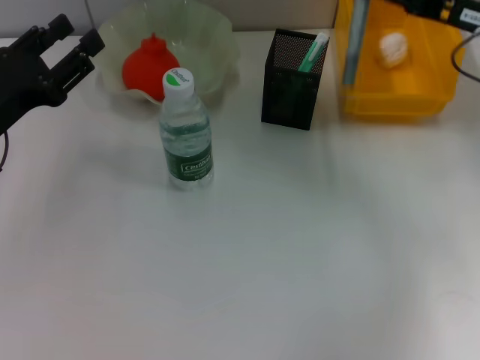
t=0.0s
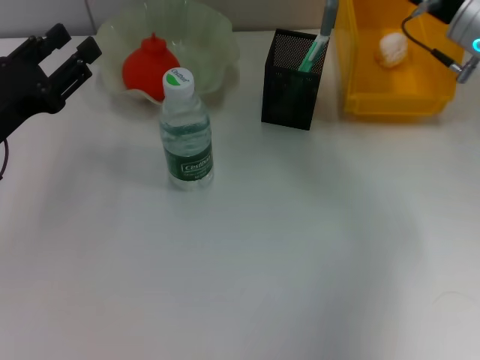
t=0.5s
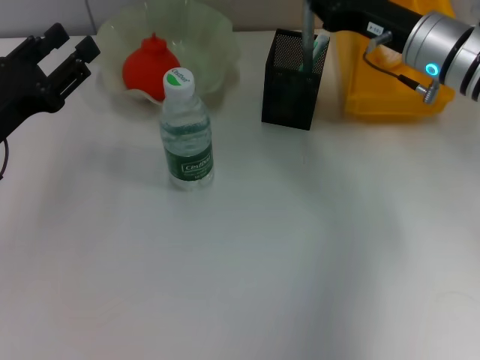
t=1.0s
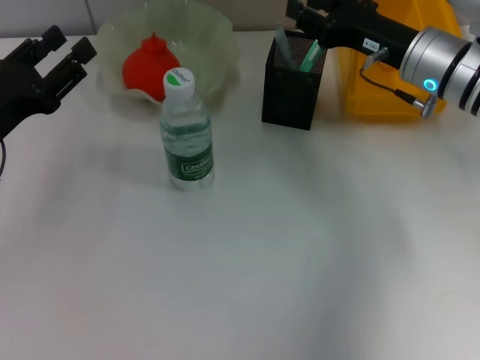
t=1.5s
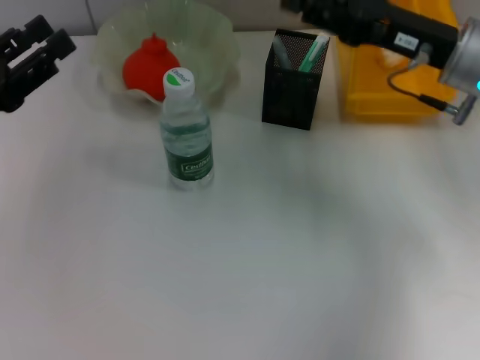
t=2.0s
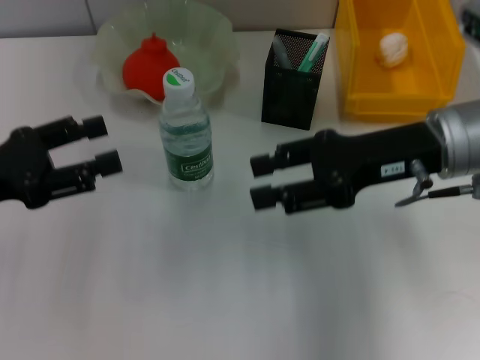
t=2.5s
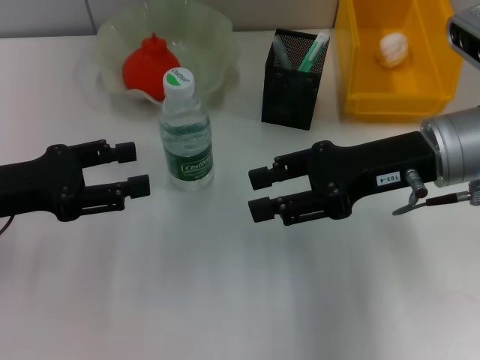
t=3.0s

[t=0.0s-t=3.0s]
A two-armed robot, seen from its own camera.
Step, t=0.0s to t=1.0s: Place the gray glue into the pen holder with the right hand.
t=0.0s to t=1.5s: The right gripper is displaced to the left and downward by about 10 cm.
t=1.5s to t=3.0s: The right gripper travels backward by about 10 cm, and opens its fingers.

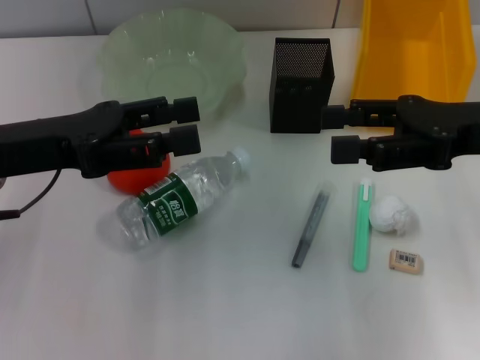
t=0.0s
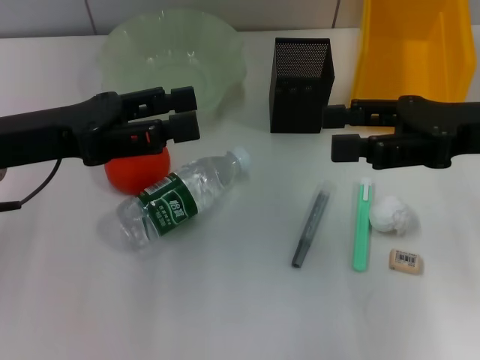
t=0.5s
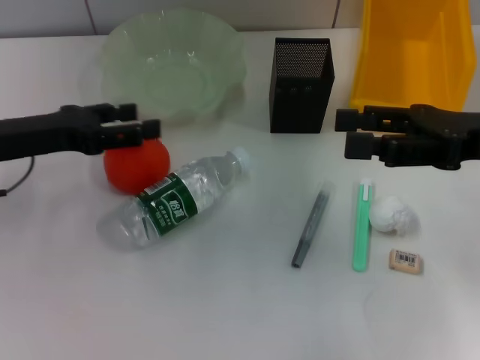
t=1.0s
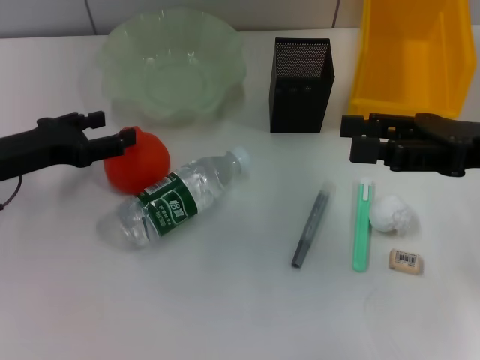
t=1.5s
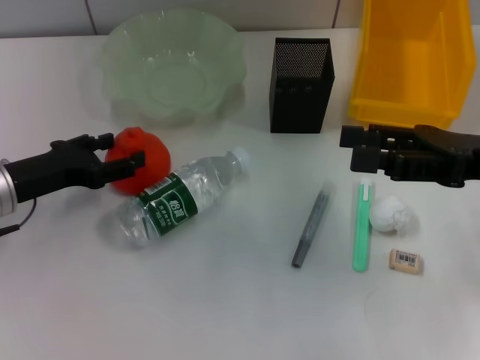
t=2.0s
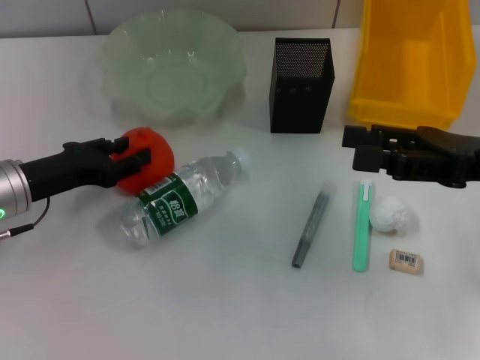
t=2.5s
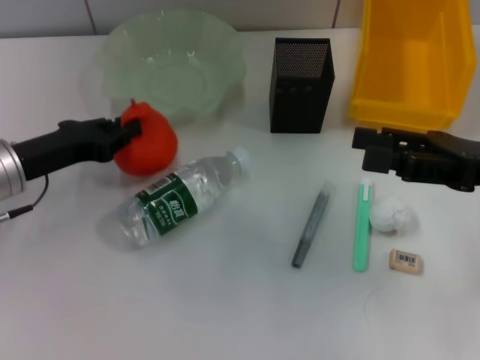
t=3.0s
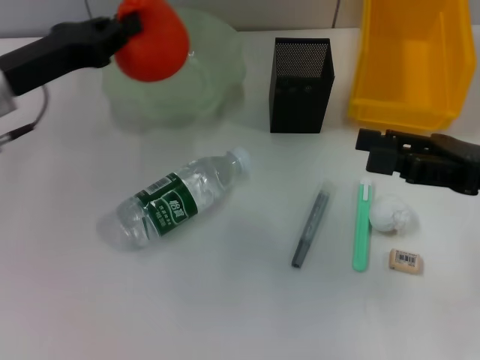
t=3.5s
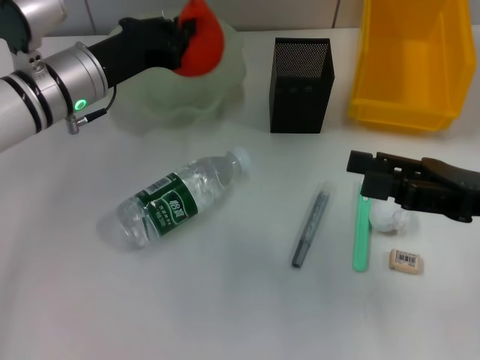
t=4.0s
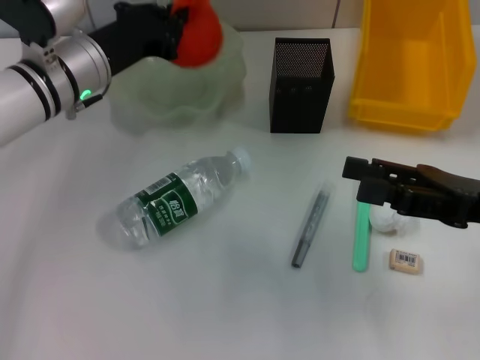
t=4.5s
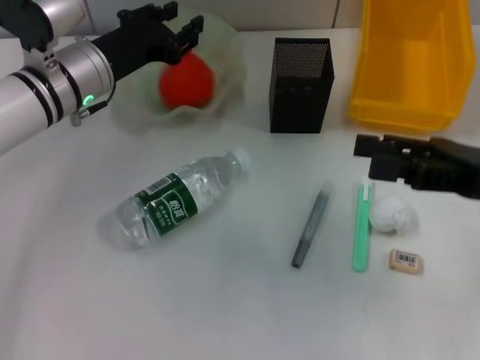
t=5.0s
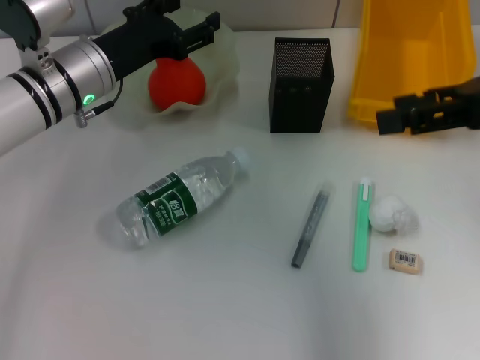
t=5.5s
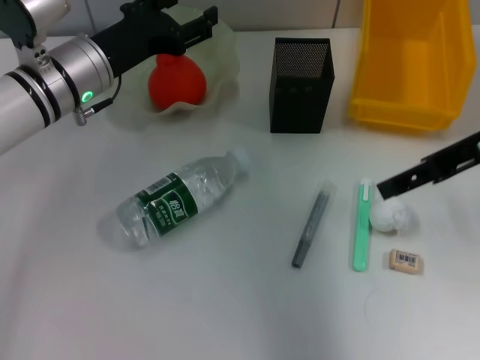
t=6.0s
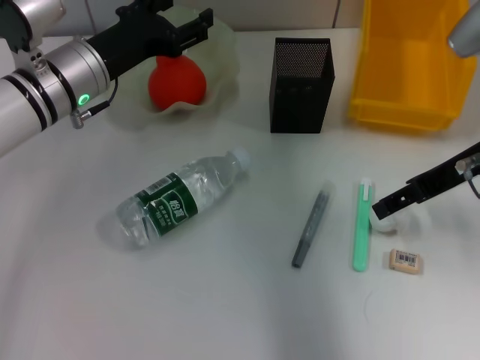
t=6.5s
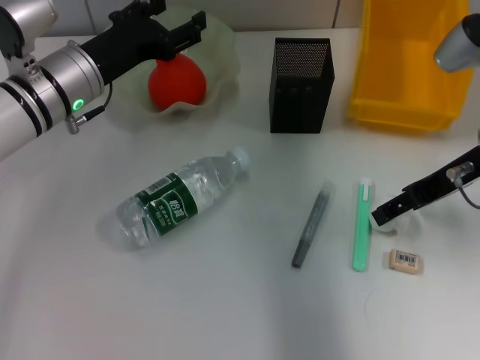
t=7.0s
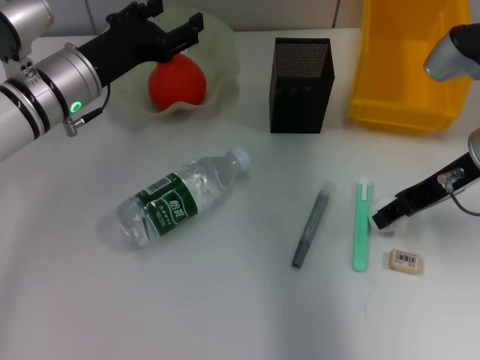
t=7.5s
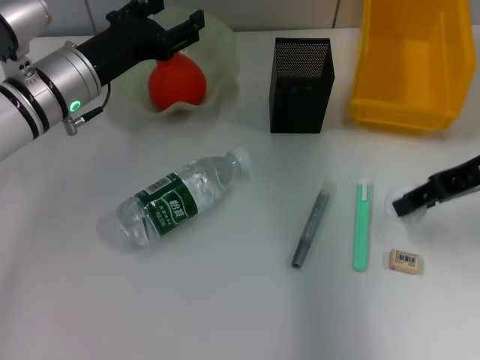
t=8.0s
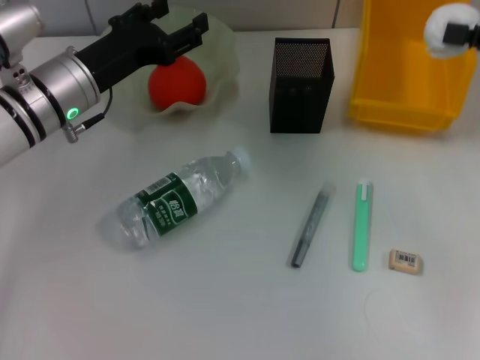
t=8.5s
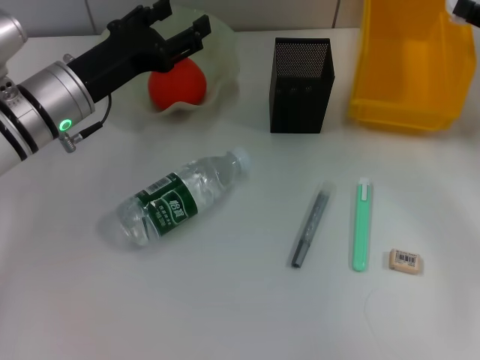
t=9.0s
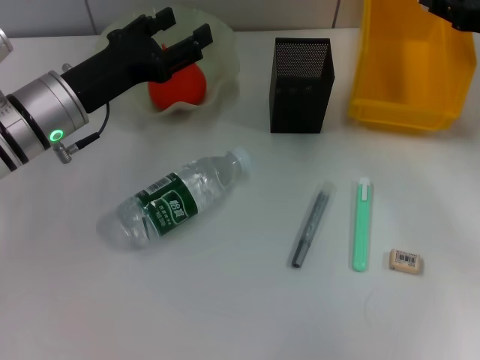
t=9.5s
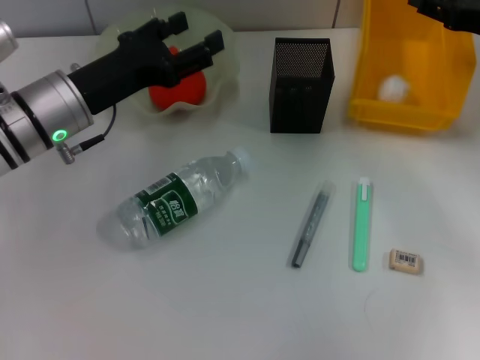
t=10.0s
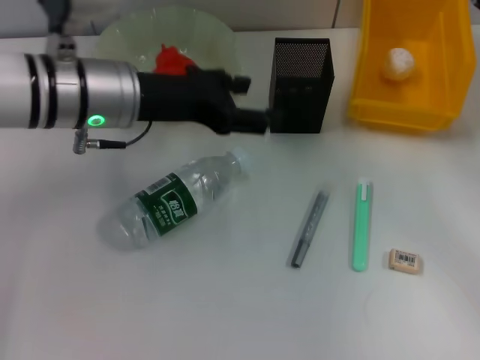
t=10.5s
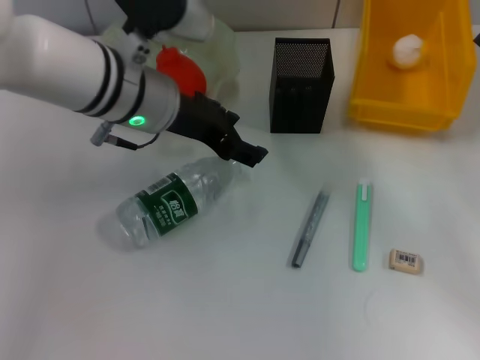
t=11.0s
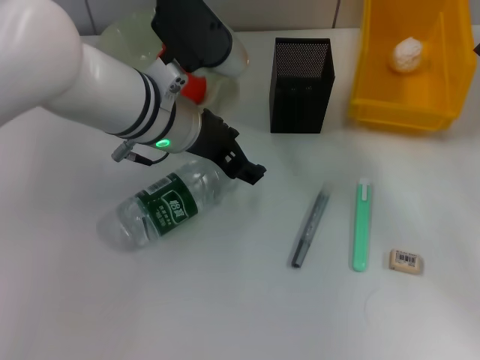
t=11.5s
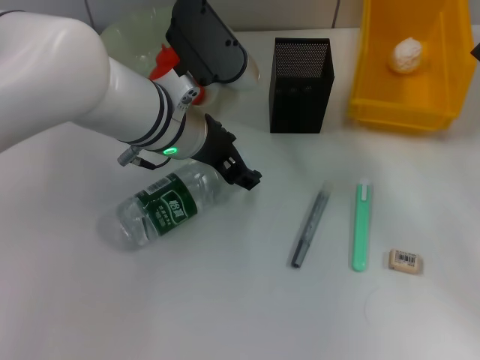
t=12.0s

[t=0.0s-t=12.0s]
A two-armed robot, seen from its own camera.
Step, t=0.0s to t=2.5s: Grab the orange with the left hand.
Step, t=3.0s to t=5.0s: Place the orange into the fruit bowl with the left hand.
Step, t=5.5s to t=7.0s: Grab the paper ball with the right hand.
Step, t=8.0s to t=11.0s: Place the paper ball into the trash can with the right hand.
t=0.0s to t=2.0s: The left gripper travels downward by approximately 10 cm.
t=2.0s to t=4.0s: The left gripper goes some 15 cm to the right and forward, and closes its fingers.
t=4.0s to t=6.0s: The left gripper opens its fingers. The right gripper is displaced upward and forward by roughly 10 cm.
t=6.0s to t=8.0s: The right gripper moves roughly 5 cm, and closes.
t=8.0s to t=10.0s: The right gripper is displaced forward by approximately 5 cm.
t=10.0s to t=12.0s: The right gripper shifts roughly 15 cm backward; the left gripper goes approximately 10 cm to the right.

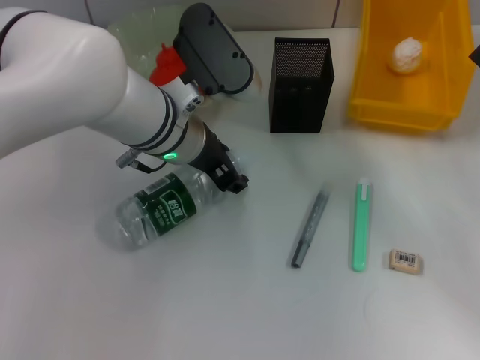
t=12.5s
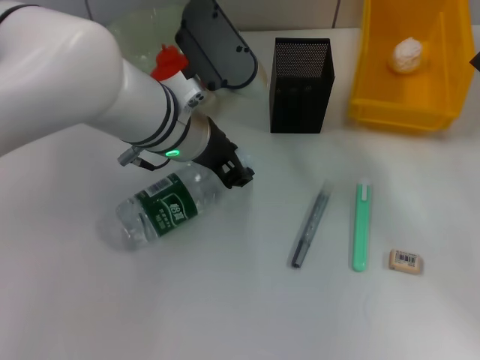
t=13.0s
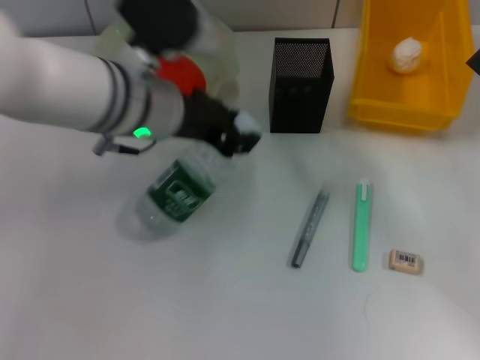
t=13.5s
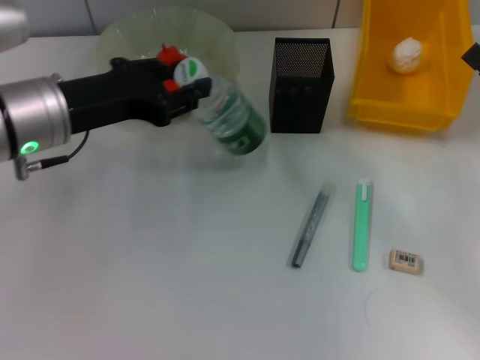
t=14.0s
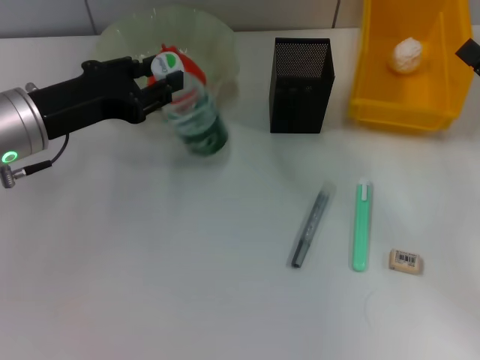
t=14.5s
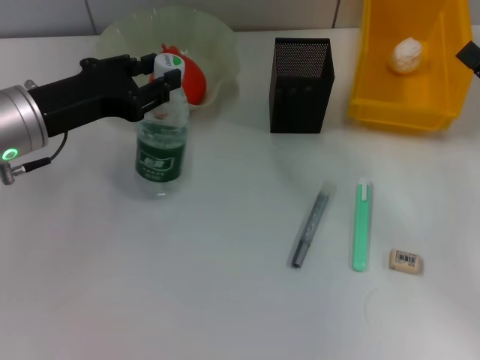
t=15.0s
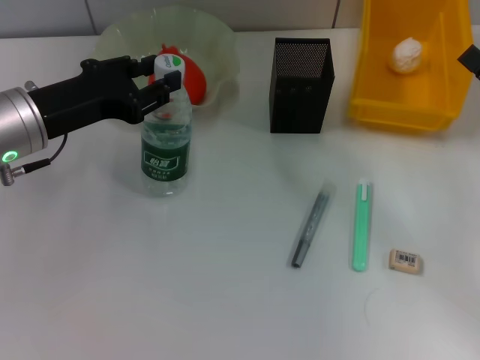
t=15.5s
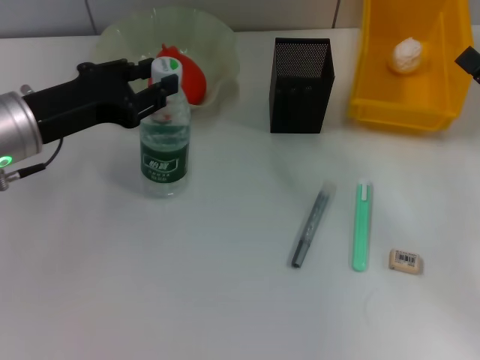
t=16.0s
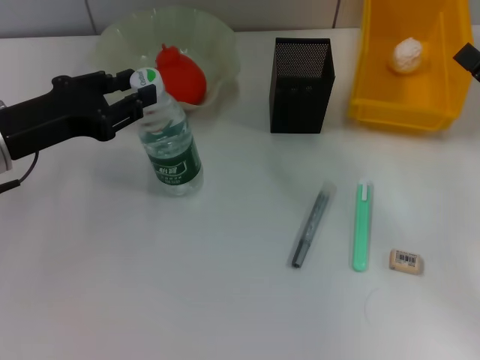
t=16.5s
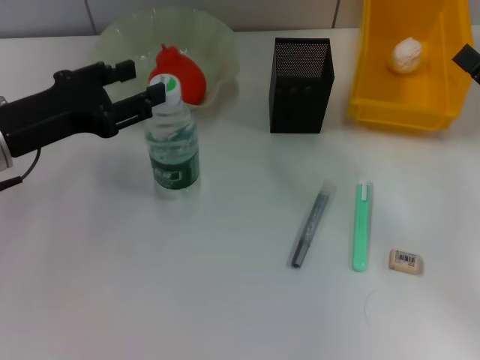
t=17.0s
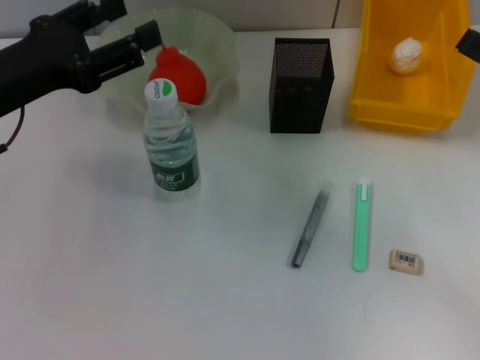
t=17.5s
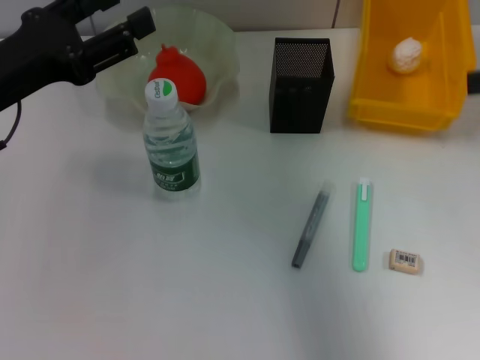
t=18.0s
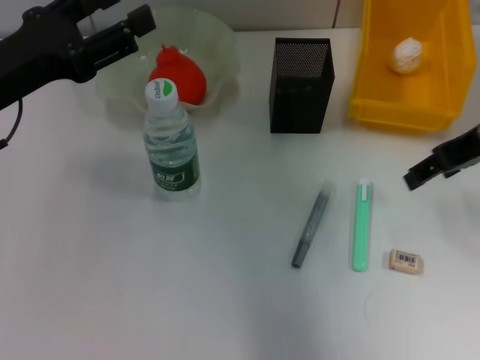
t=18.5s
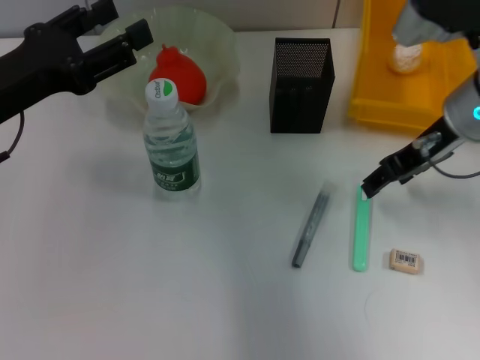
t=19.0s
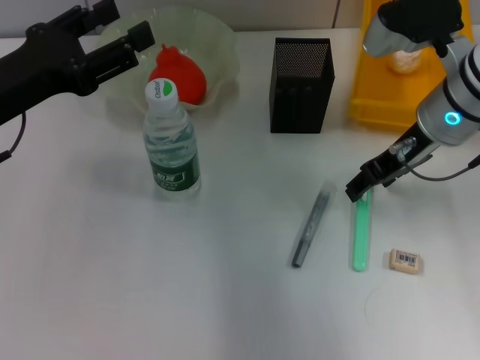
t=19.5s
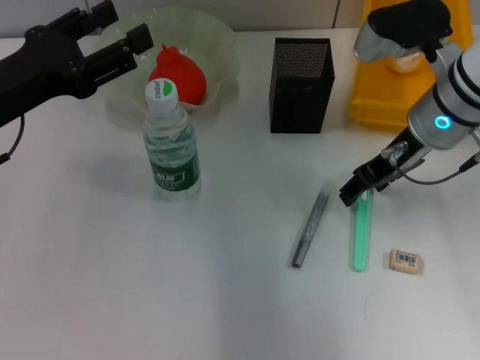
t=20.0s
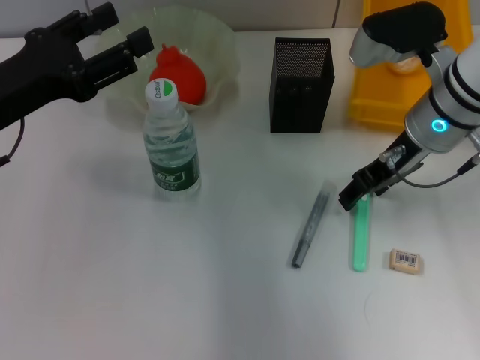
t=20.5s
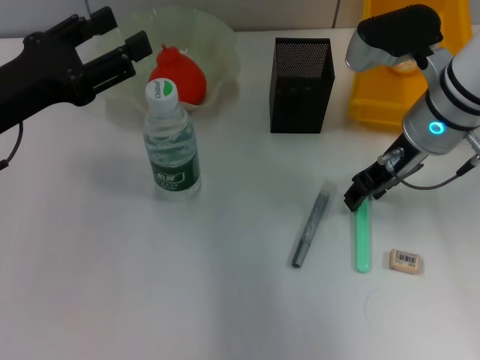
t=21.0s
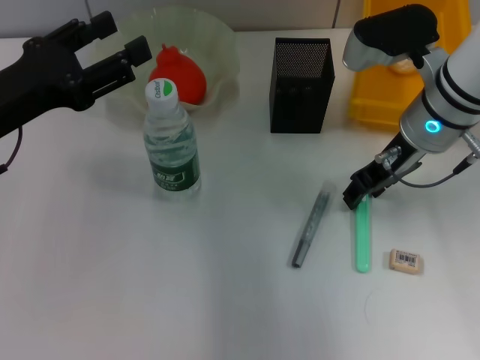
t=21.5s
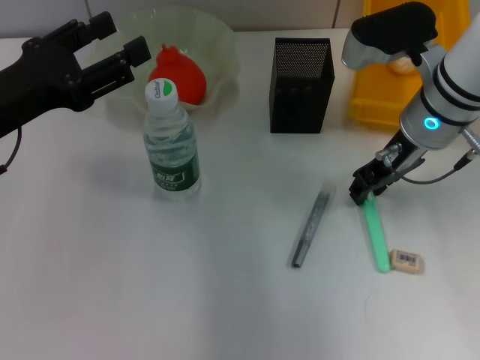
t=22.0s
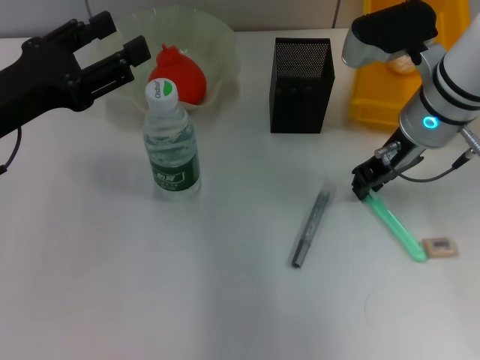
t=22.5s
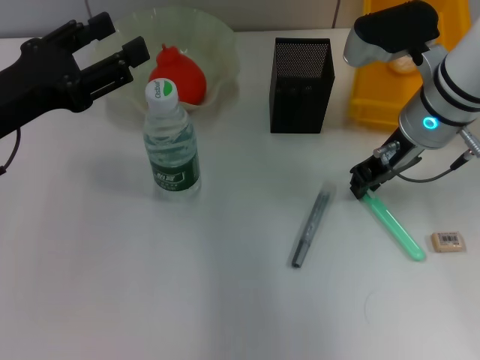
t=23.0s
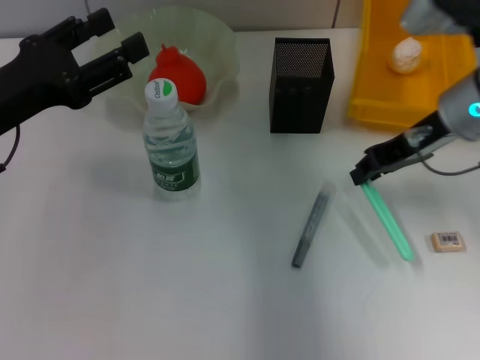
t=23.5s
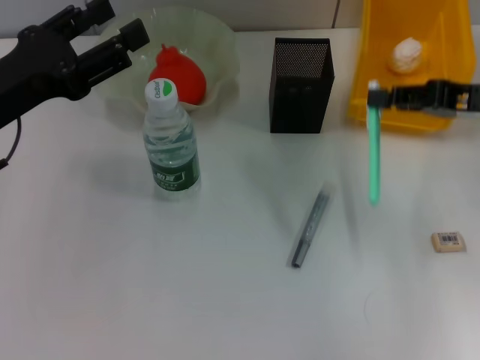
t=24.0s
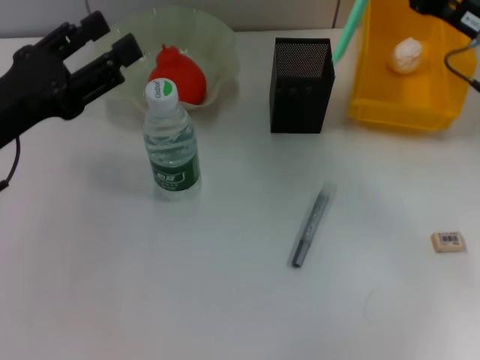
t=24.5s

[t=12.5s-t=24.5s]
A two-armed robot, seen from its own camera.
Step, t=13.0s to t=17.0s: Place the water bottle on the table with the left hand.
Step, t=17.5s to t=22.5s: Grab the blue utility knife with the right hand.
t=12.5s to t=14.5s: The left gripper goes roughly 15 cm to the left.
t=14.5s to t=16.5s: The grippers move only a little.
t=16.5s to t=18.5s: The left gripper opens its fingers; the right gripper moves upward, to the left and forward, about 15 cm.
t=18.5s to t=20.5s: The right gripper goes roughly 10 cm downward and to the left.
t=20.5s to t=22.5s: The right gripper closes up.
t=22.5s to t=24.5s: The right gripper goes some 10 cm to the right.
